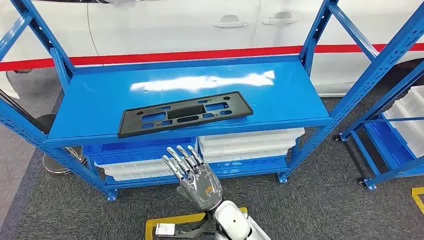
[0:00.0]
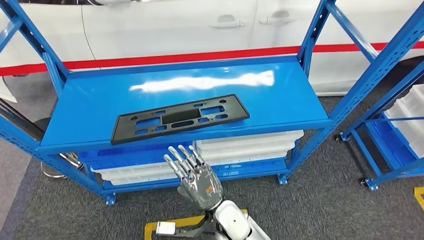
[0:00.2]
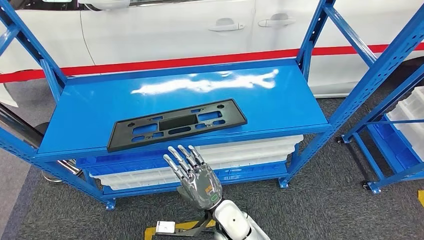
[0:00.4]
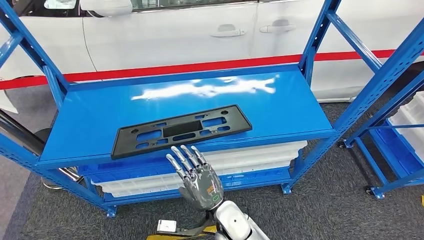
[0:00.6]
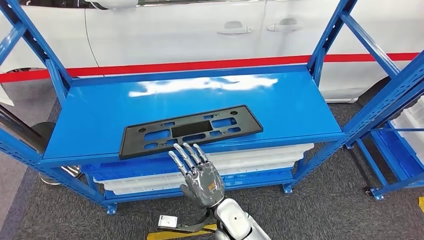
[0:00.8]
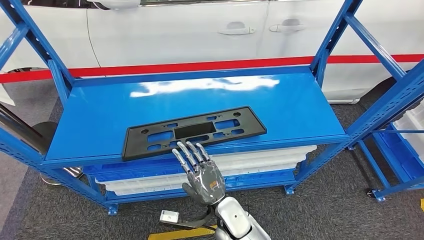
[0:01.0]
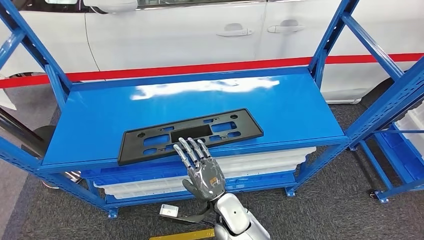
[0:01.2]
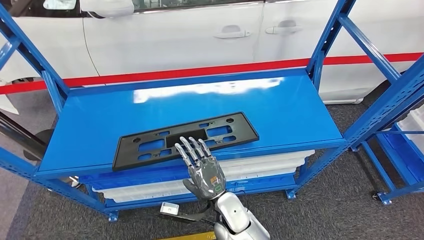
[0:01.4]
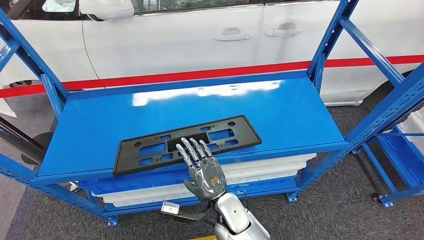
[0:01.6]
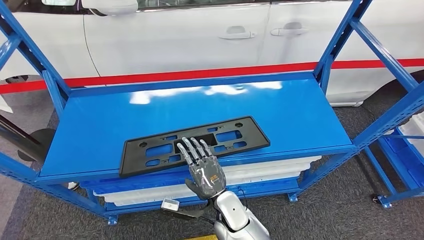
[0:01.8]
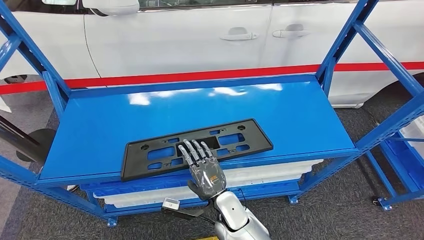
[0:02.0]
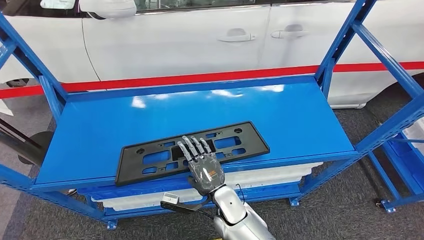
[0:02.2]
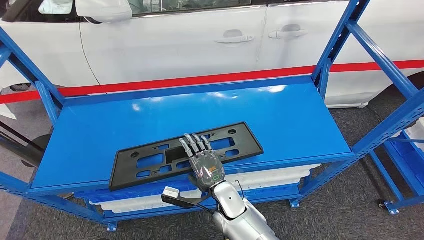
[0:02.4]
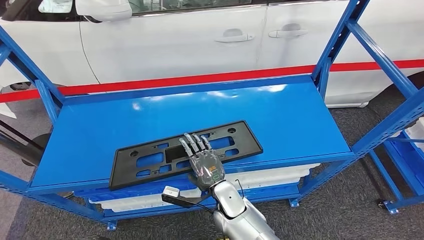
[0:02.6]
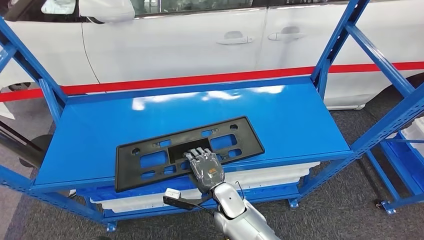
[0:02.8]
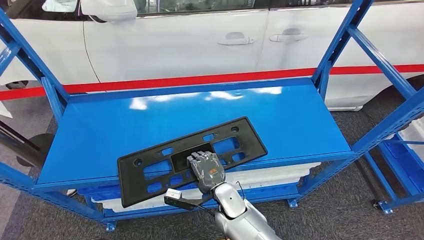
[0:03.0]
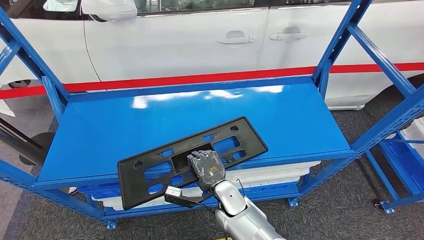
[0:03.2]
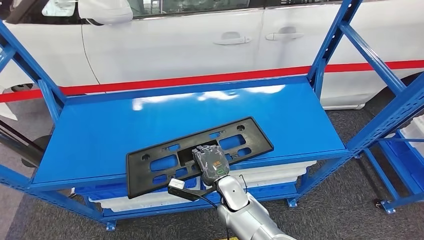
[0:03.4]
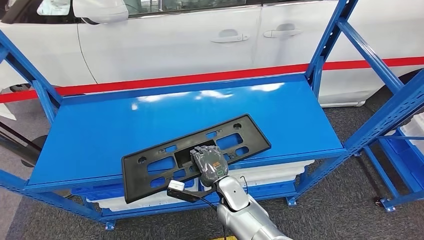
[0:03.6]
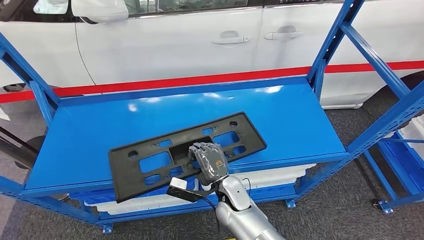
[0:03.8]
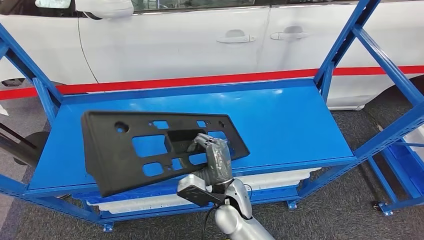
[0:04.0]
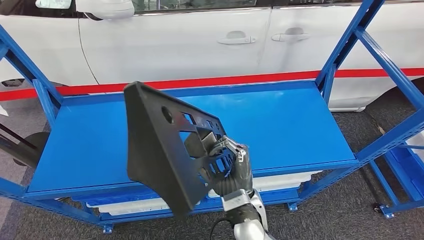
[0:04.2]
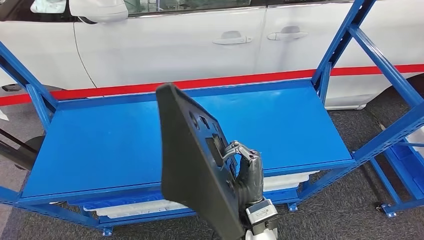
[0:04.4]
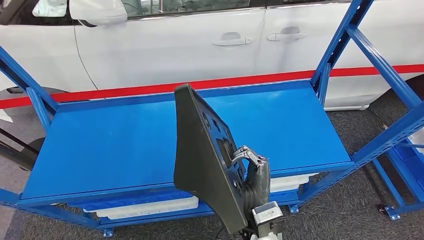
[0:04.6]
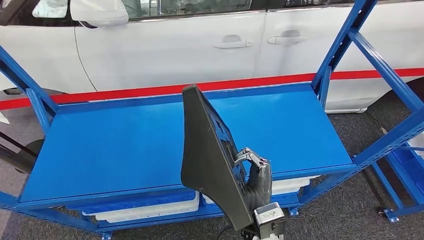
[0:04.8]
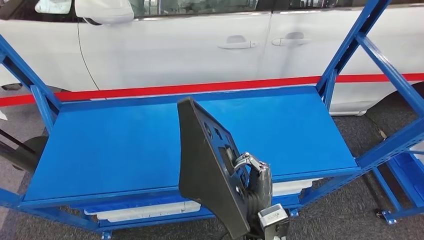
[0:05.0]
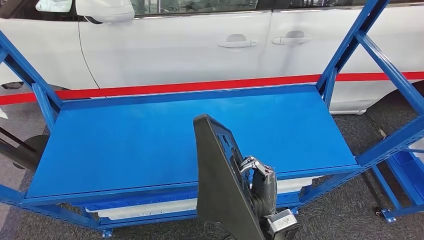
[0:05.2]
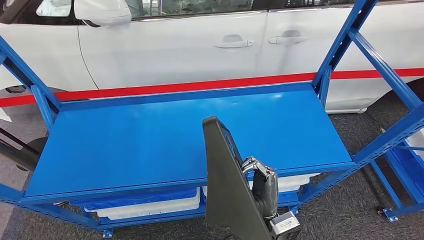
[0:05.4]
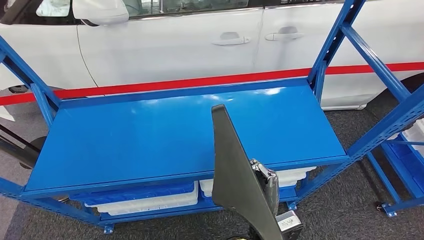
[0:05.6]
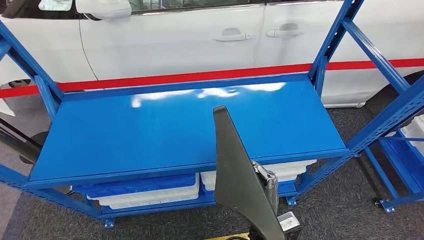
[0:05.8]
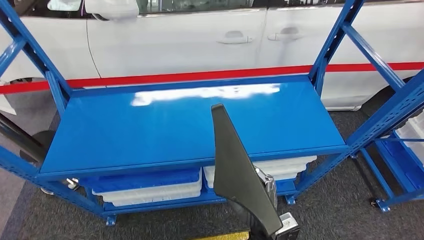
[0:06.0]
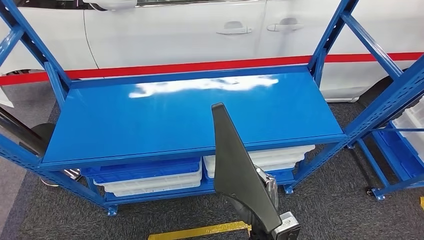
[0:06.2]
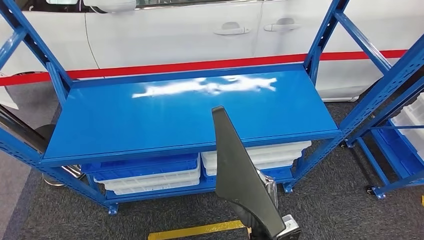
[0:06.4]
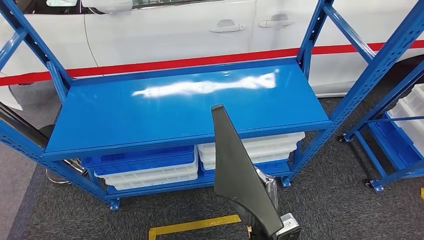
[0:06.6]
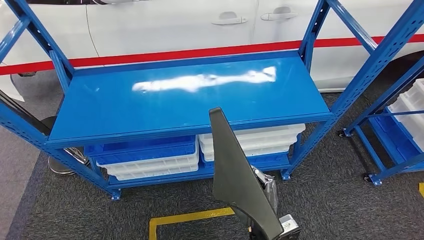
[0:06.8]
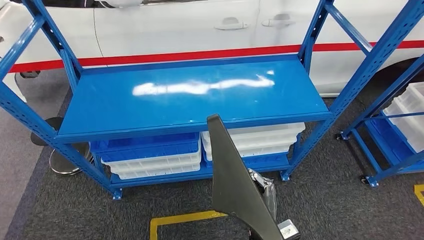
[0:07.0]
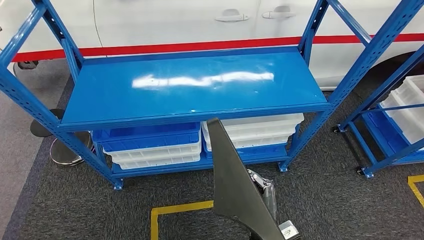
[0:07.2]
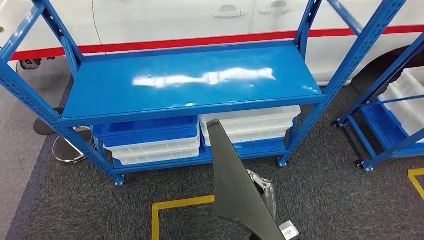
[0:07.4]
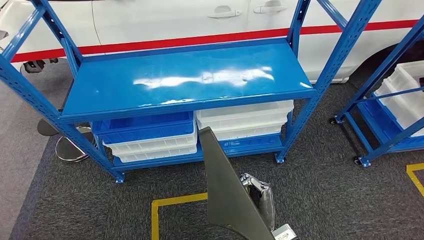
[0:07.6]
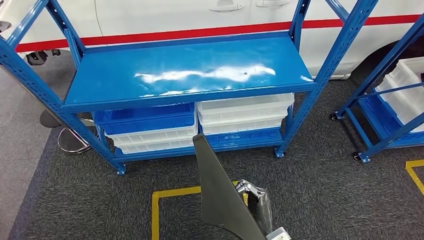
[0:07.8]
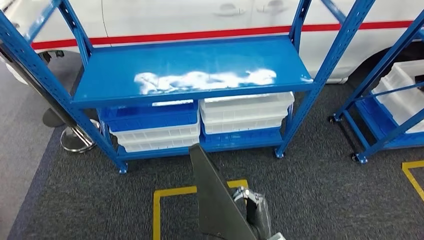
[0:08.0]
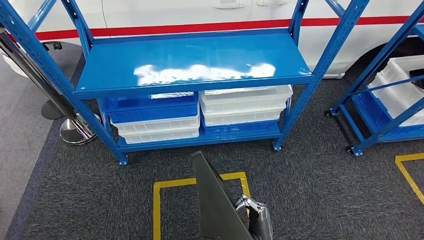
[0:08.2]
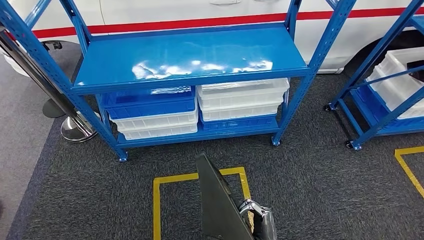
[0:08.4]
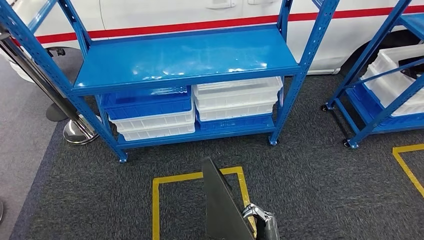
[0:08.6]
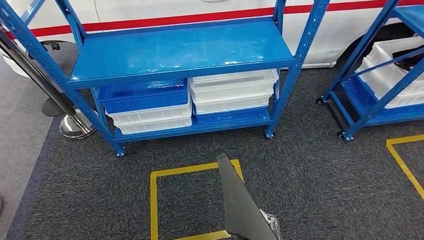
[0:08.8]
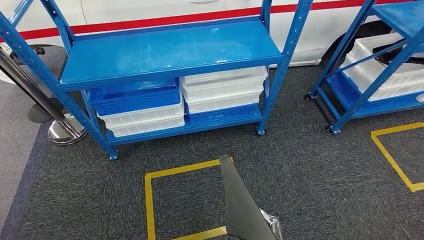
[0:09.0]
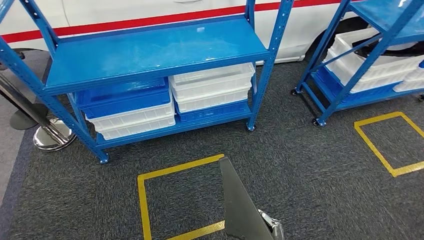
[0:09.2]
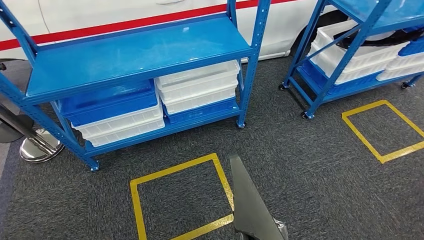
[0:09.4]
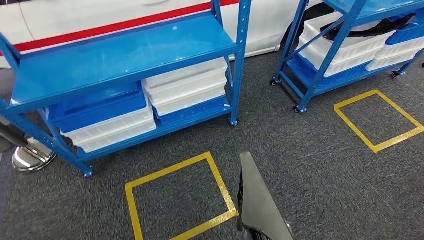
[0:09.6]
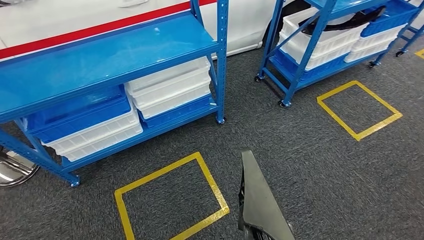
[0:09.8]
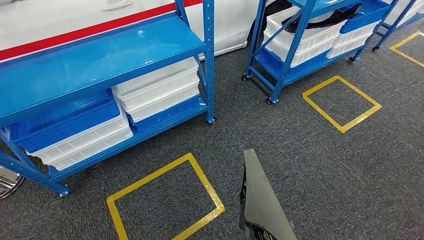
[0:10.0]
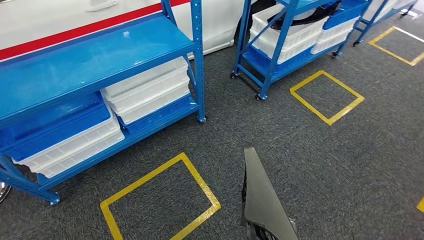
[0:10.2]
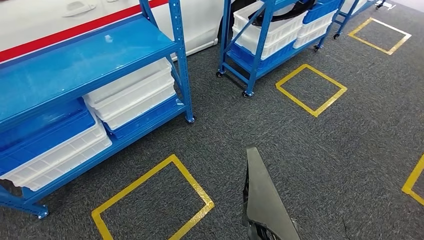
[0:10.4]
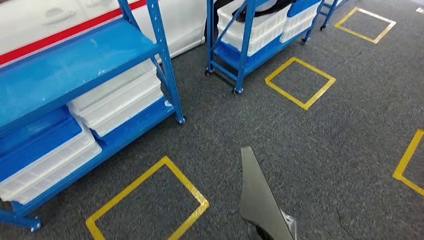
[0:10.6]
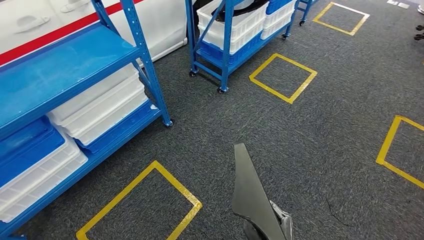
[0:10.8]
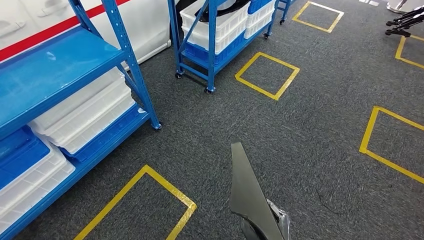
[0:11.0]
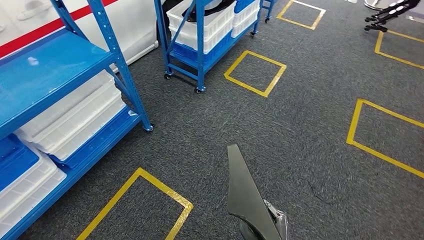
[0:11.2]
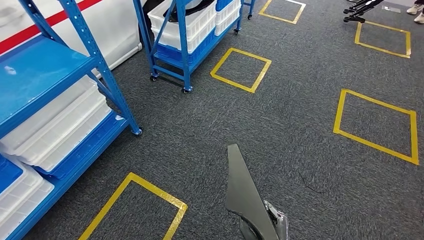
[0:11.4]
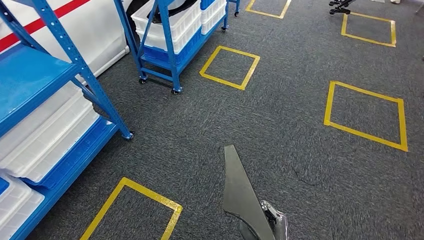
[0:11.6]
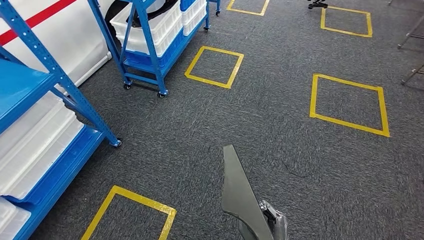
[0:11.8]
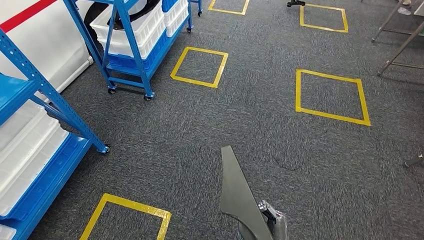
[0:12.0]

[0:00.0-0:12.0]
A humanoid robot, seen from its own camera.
Step, 0:00.0 to 0:06.2: Pick up the large material from the shelf.

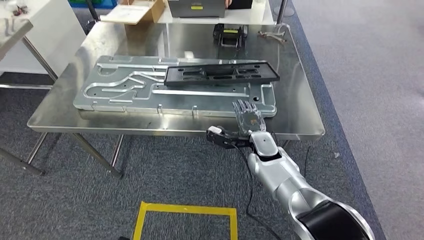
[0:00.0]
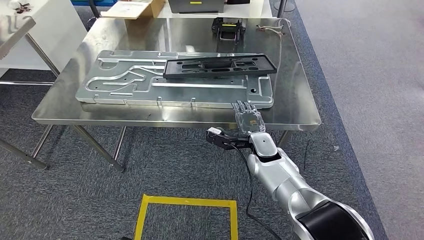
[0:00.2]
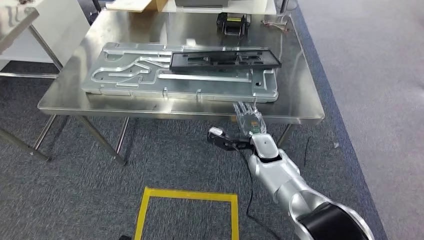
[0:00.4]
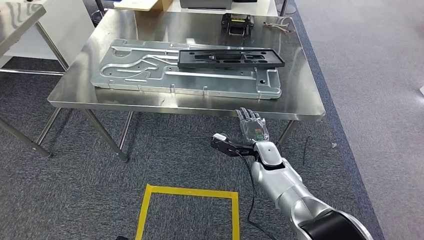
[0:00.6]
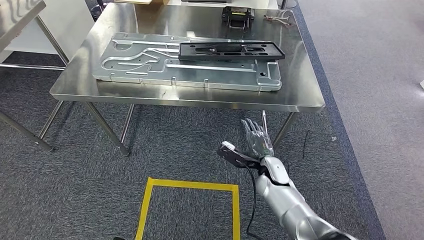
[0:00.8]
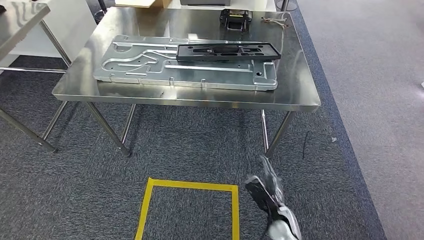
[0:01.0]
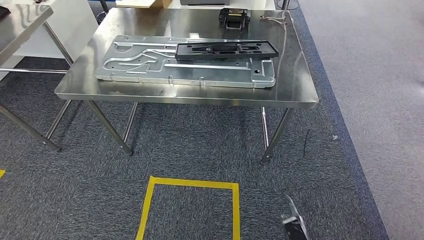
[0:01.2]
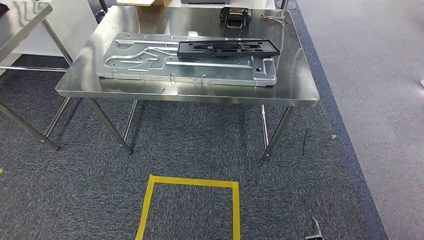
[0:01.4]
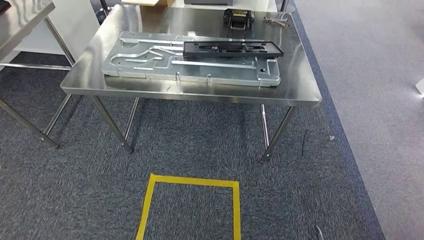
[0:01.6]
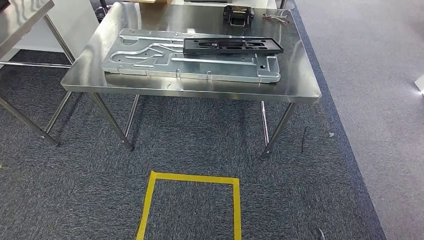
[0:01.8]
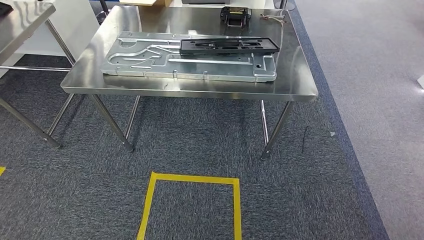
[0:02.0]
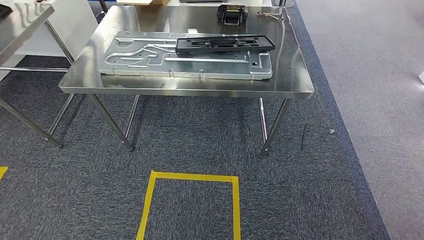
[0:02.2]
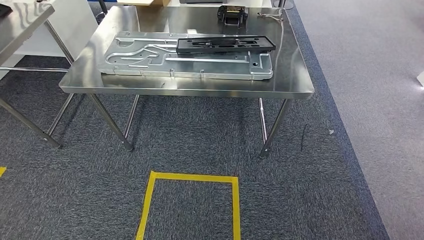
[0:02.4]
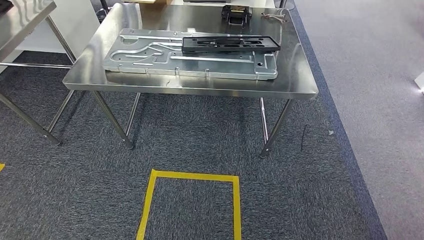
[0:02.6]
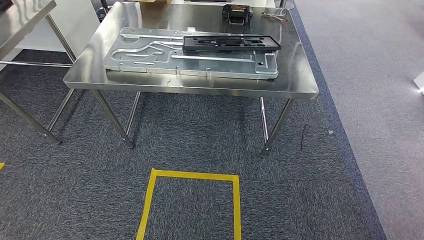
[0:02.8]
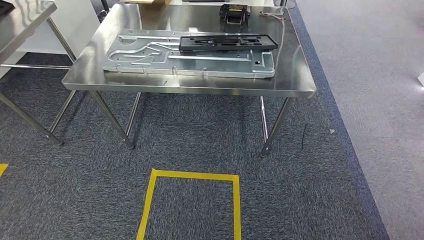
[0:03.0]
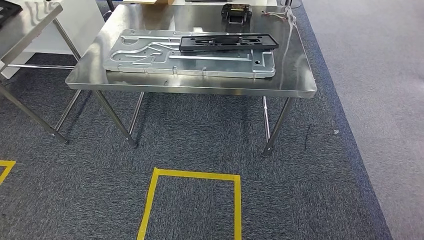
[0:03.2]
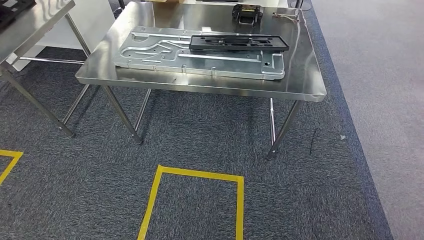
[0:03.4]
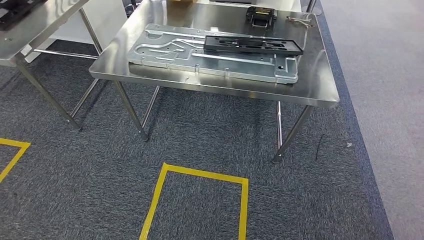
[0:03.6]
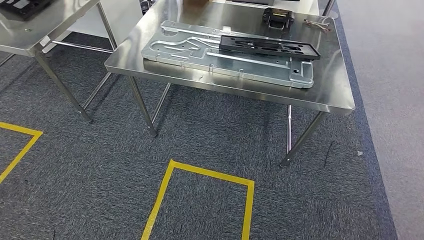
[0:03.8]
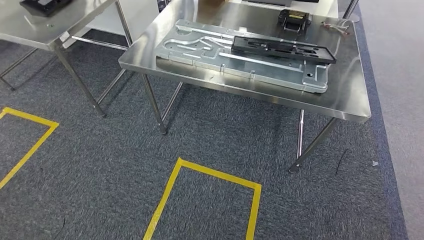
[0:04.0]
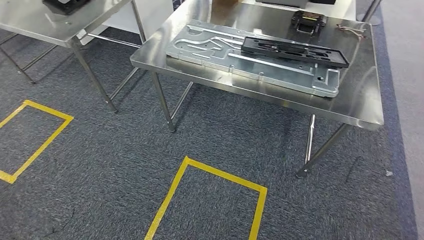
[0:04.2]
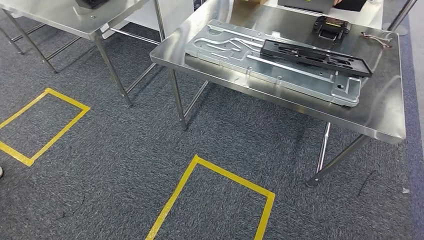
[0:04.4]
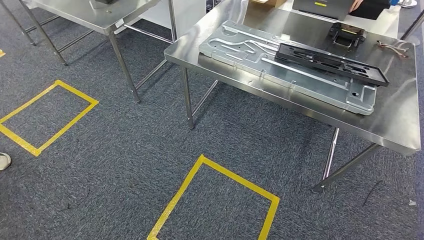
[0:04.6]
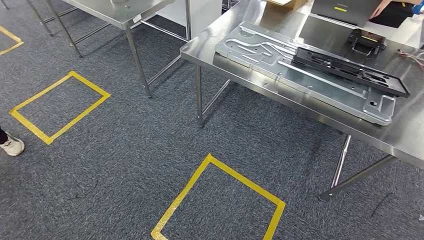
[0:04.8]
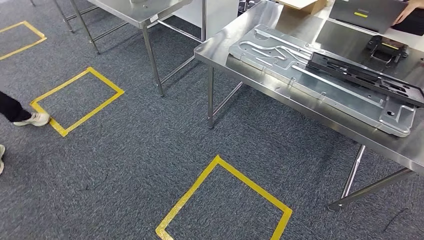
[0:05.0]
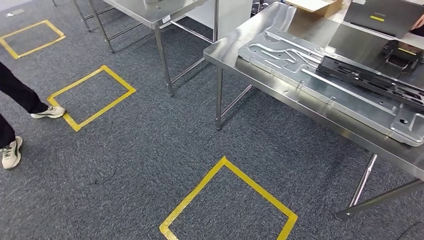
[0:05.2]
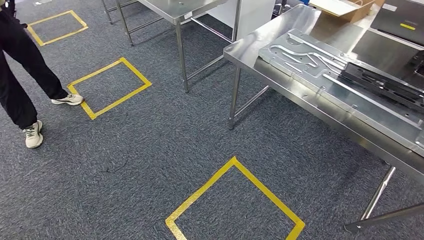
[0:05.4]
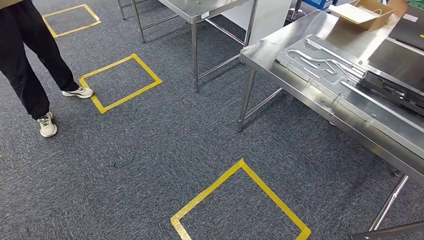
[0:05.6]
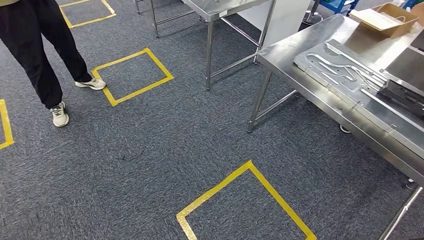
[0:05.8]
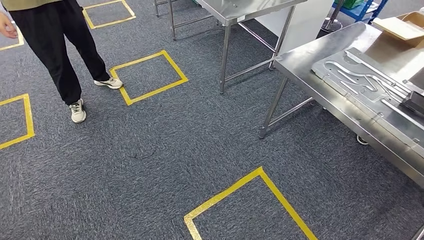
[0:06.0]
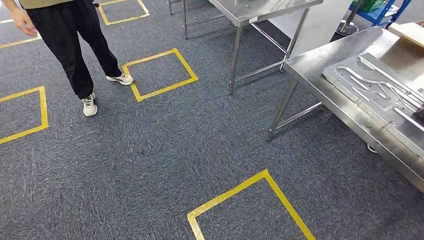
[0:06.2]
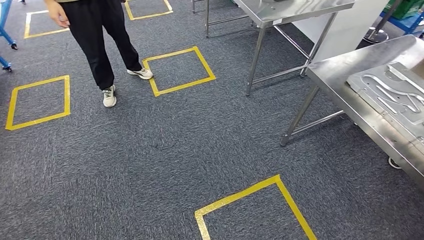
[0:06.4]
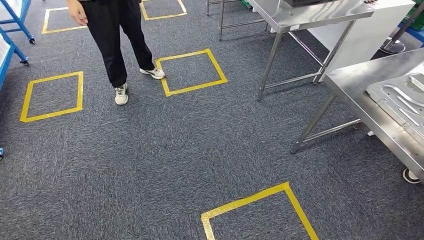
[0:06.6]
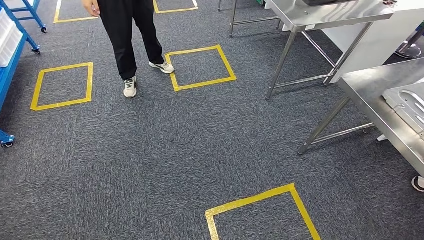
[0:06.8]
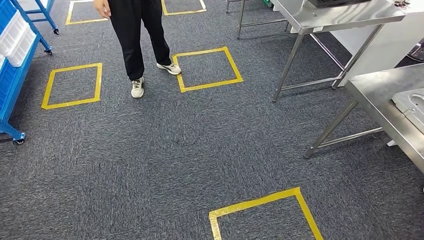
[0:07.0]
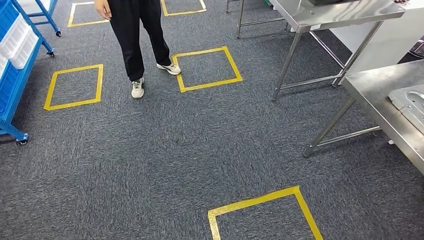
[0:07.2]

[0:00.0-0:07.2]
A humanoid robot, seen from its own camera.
0:01.4 to 0:02.8: The right hand moves backward, approximately 5 cm.
